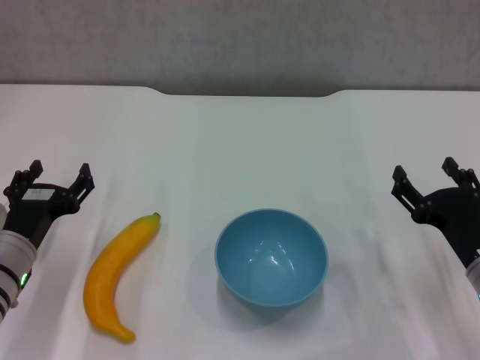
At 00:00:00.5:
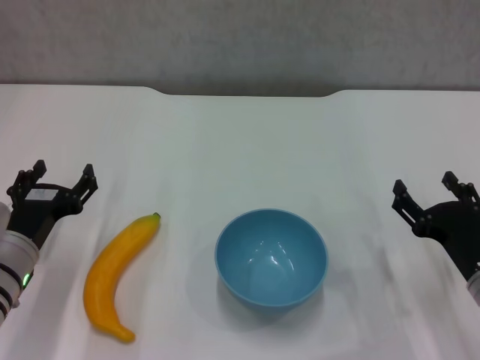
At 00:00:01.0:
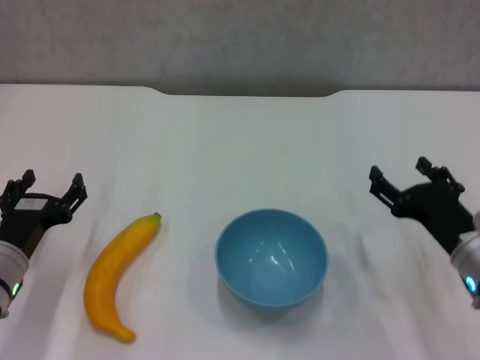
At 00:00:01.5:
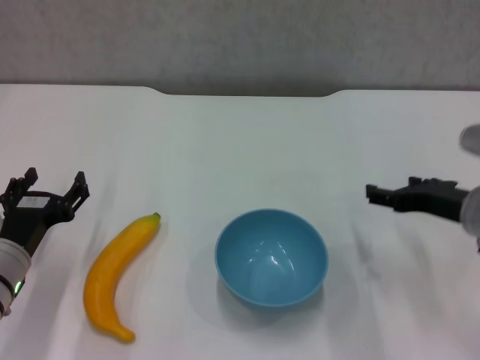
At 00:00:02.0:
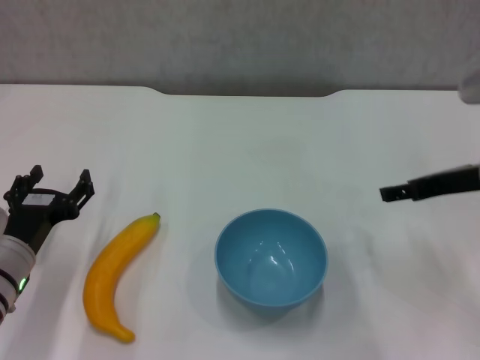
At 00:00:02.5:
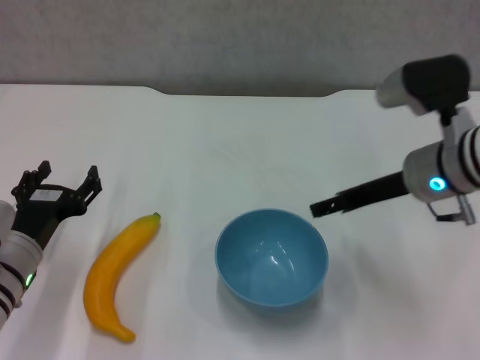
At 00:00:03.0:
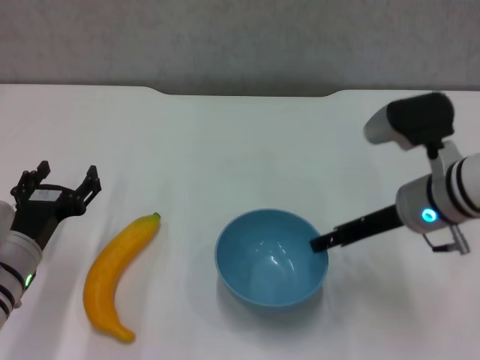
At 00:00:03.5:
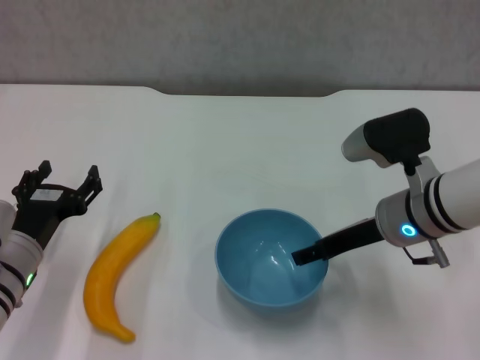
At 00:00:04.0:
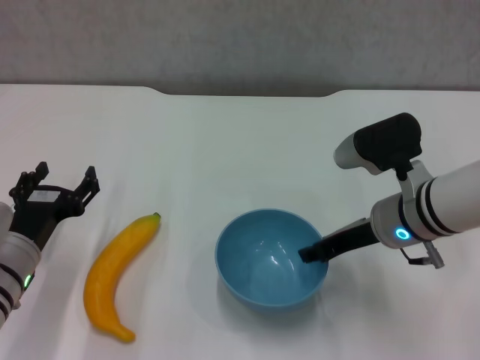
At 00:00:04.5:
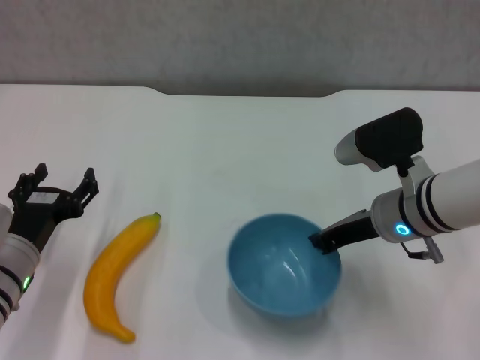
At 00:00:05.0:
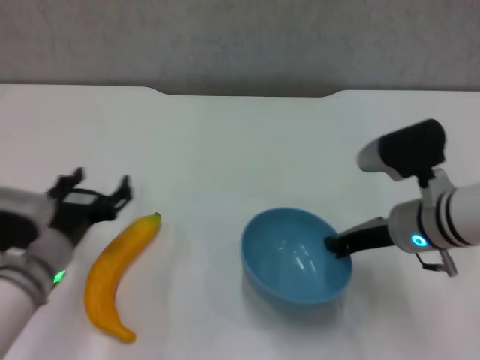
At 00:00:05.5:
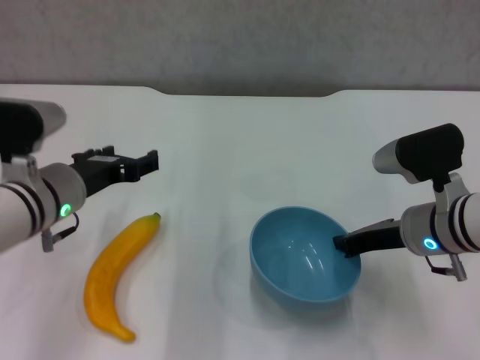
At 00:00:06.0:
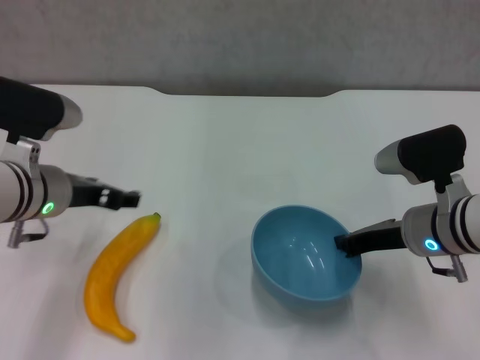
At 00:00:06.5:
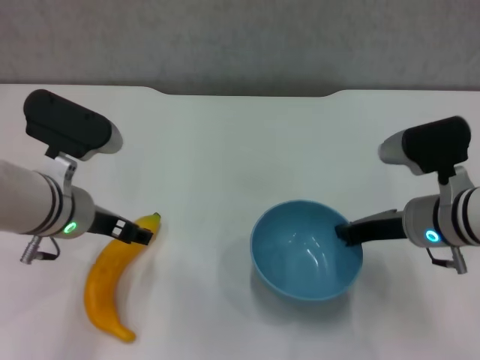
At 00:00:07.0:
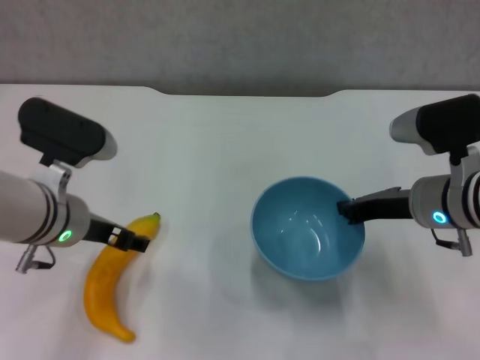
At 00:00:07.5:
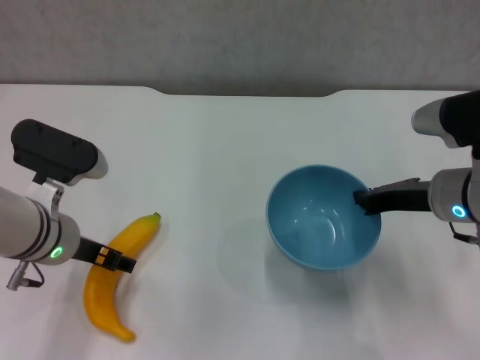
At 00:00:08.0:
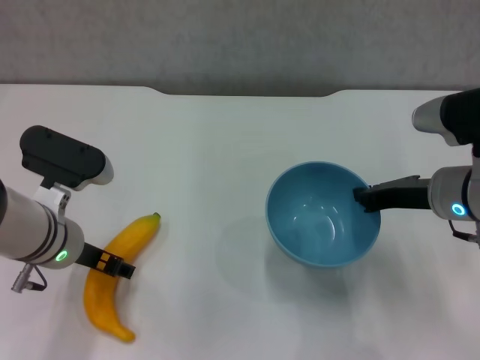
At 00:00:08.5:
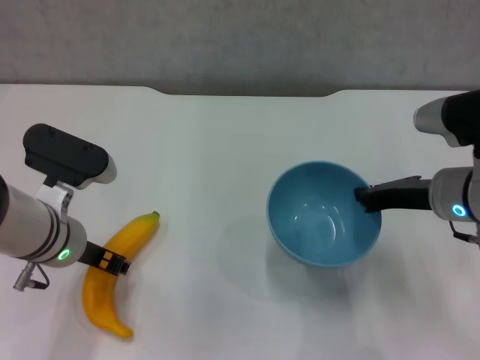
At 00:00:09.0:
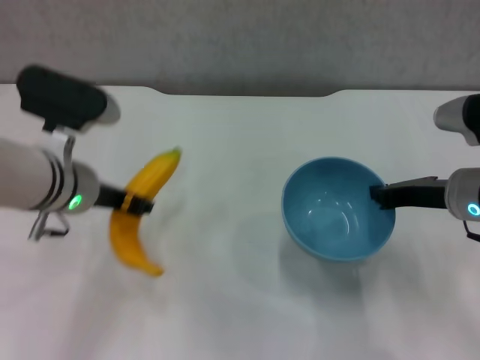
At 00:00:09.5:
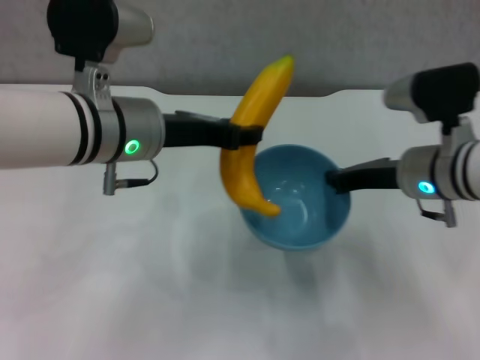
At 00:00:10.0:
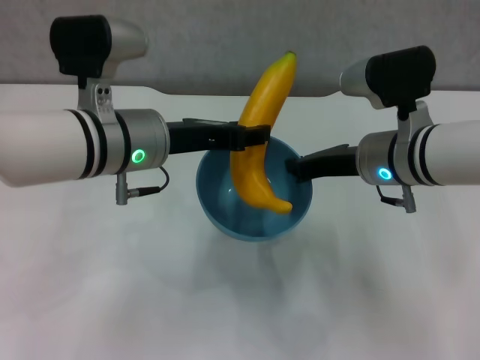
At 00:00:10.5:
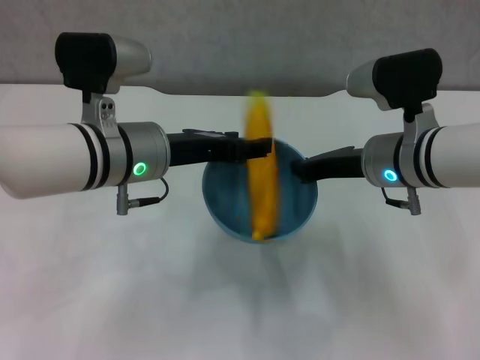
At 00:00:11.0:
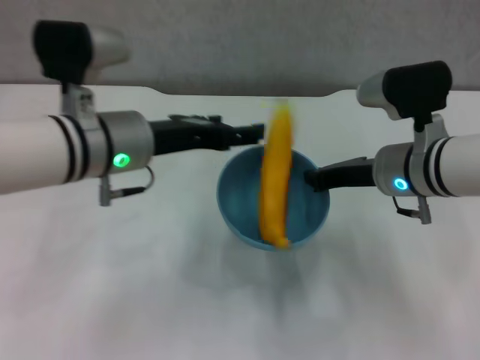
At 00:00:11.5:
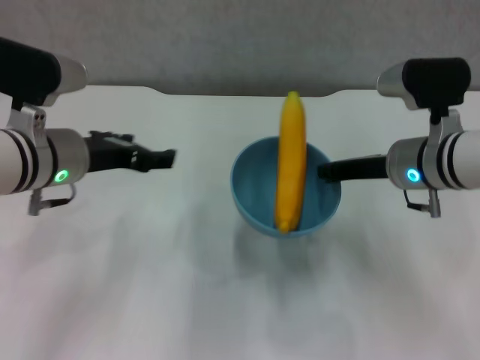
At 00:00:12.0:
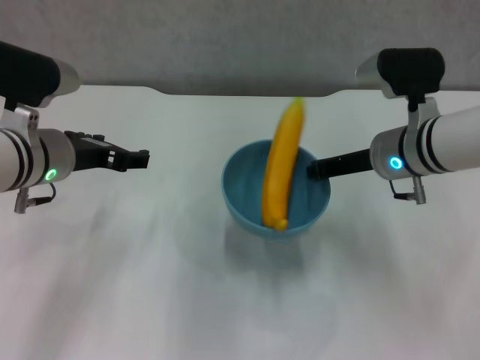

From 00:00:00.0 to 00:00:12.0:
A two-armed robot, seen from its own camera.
Step, from 00:00:00.0 to 00:00:04.5: Grasp the blue bowl with right gripper.
Step, from 00:00:05.0 to 00:00:07.0: Lift the blue bowl with right gripper.
Step, from 00:00:07.5 to 00:00:08.0: Grasp the banana with left gripper.
Step, from 00:00:08.5 to 00:00:10.5: Place the banana in the blue bowl with left gripper.
From 00:00:00.0 to 00:00:02.0: The right gripper heads upward and forward, covering roughly 15 cm.
From 00:00:02.0 to 00:00:04.0: The right gripper is displaced to the left and downward by some 10 cm.
From 00:00:04.0 to 00:00:06.0: The left gripper goes roughly 10 cm upward and forward; the right gripper closes up.
From 00:00:08.0 to 00:00:10.0: The right gripper is displaced to the left by approximately 5 cm. Meanwhile the left gripper goes roughly 10 cm upward and to the right, and closes its fingers.
From 00:00:10.0 to 00:00:12.0: The left gripper moves to the left, some 10 cm, and opens its fingers.

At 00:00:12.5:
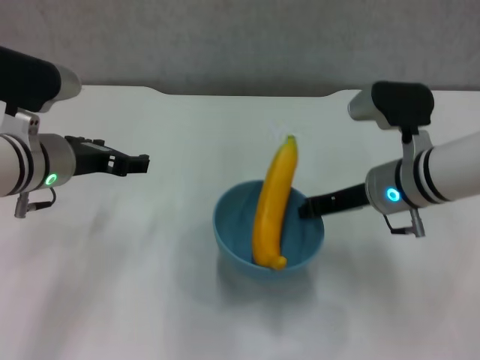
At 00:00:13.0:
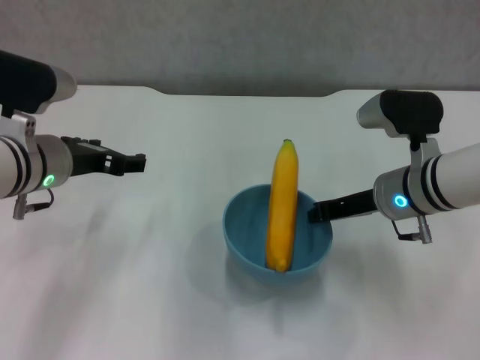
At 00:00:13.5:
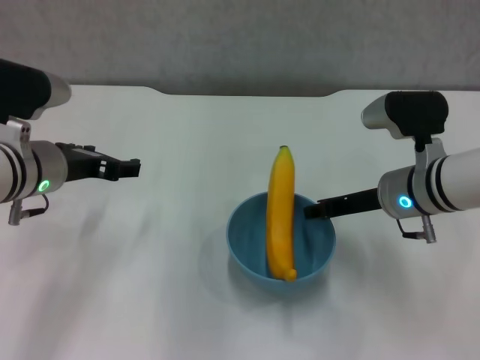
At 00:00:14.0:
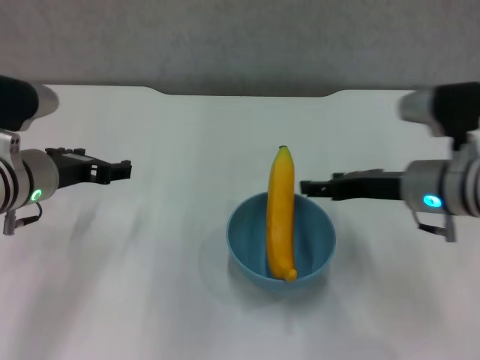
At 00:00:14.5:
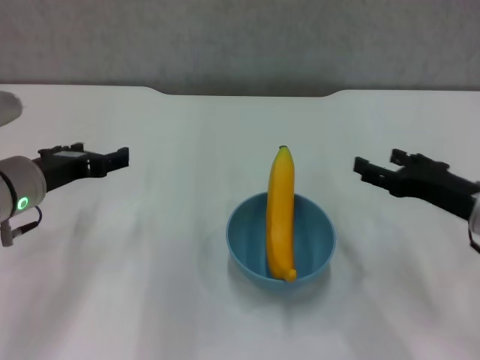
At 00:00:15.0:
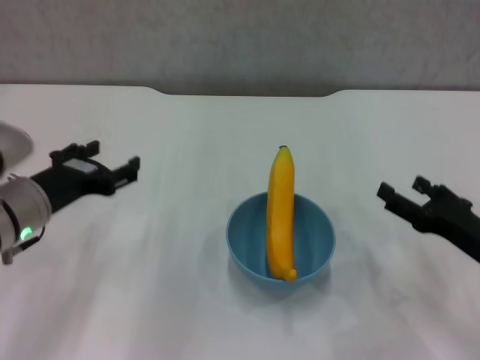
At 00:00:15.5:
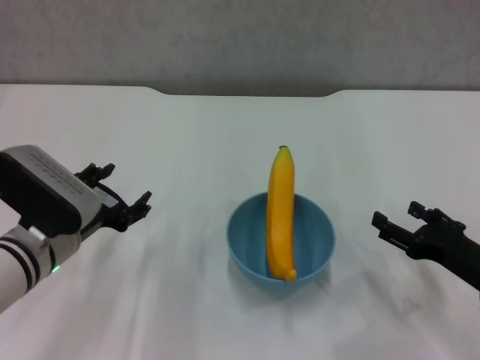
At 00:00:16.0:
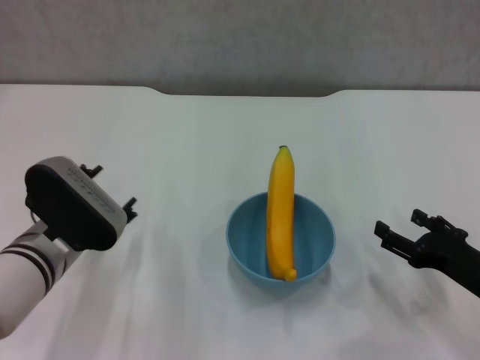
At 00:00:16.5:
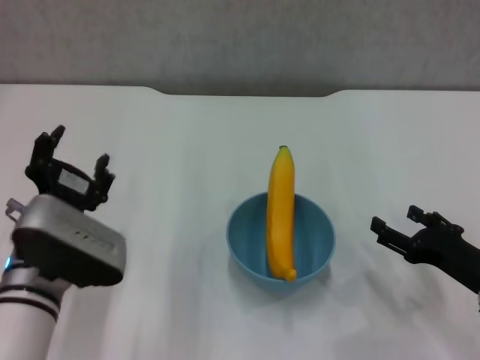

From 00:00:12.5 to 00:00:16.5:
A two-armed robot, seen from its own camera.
From 00:00:12.5 to 00:00:14.5: The right gripper is displaced to the right and backward by approximately 10 cm, and opens its fingers.
From 00:00:14.5 to 00:00:16.5: The right gripper is displaced downward by approximately 5 cm; the left gripper travels backward, to the right and downward by some 10 cm.
